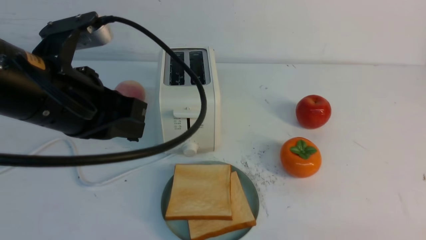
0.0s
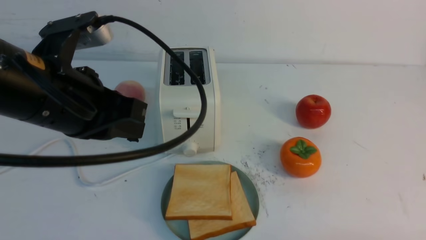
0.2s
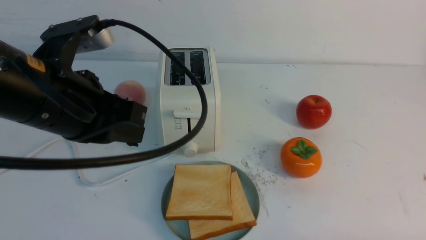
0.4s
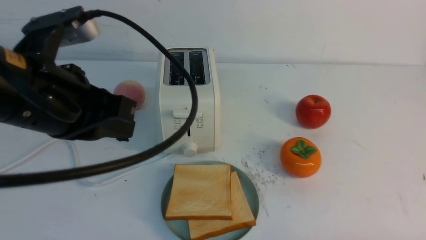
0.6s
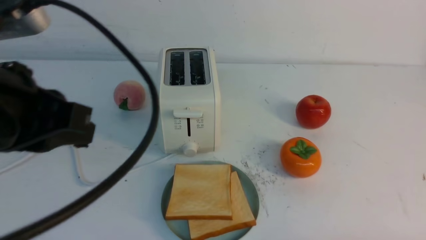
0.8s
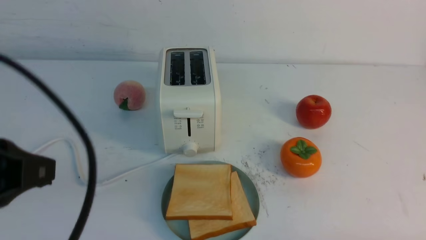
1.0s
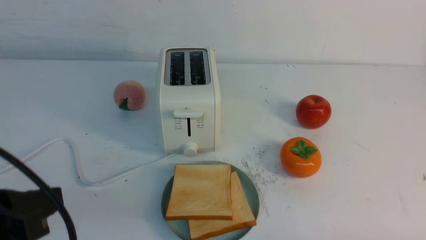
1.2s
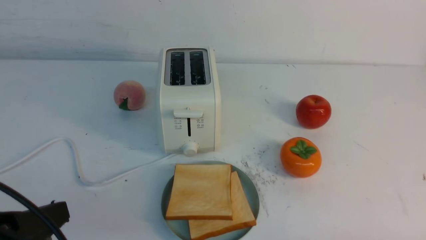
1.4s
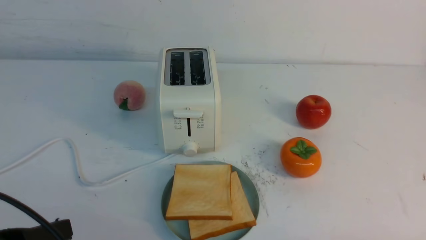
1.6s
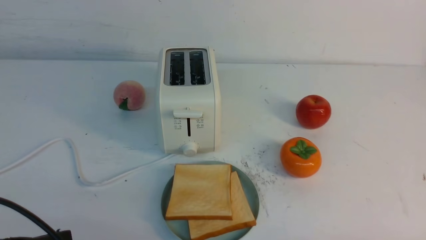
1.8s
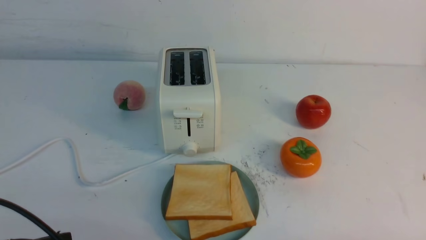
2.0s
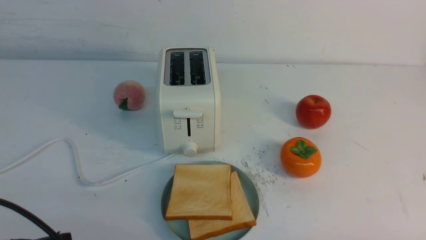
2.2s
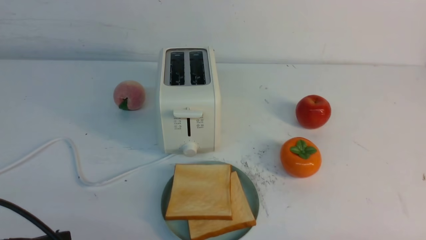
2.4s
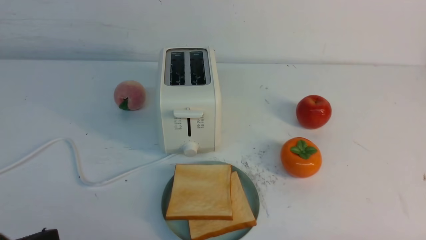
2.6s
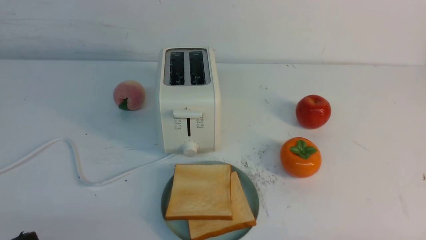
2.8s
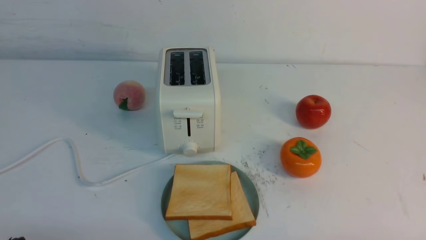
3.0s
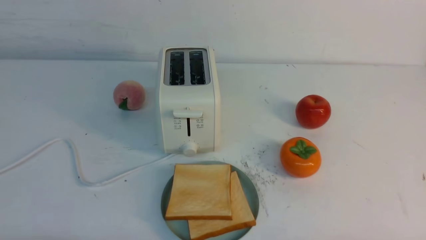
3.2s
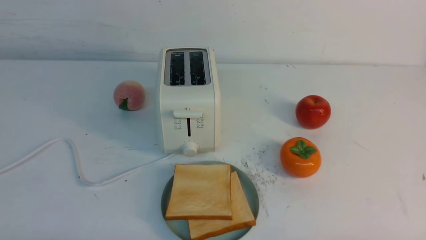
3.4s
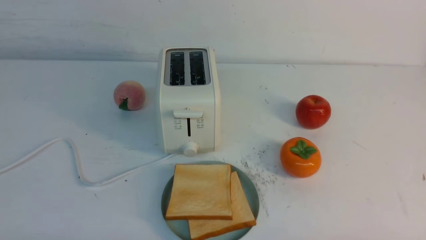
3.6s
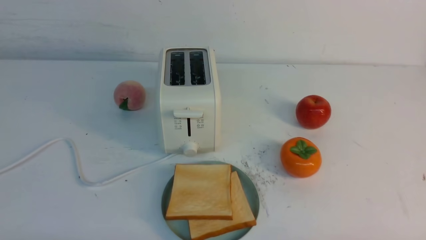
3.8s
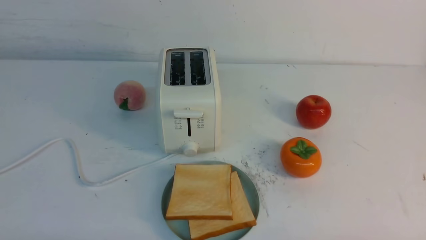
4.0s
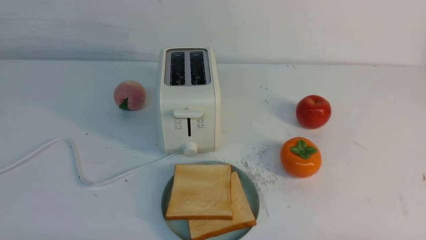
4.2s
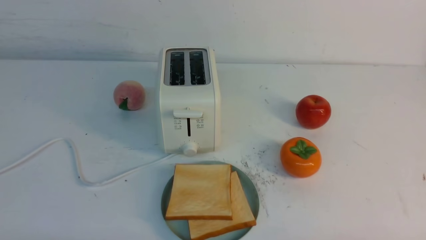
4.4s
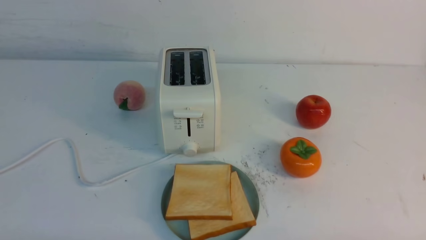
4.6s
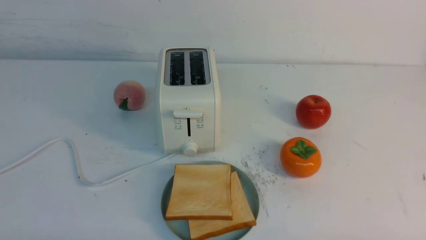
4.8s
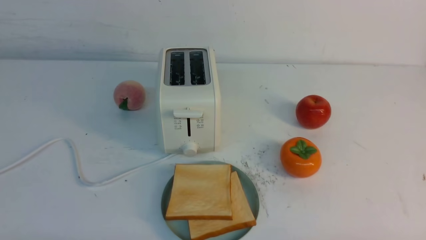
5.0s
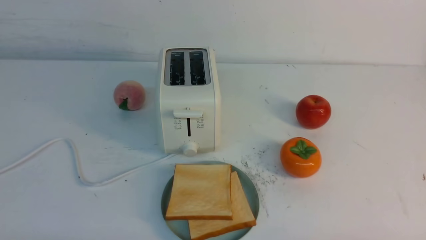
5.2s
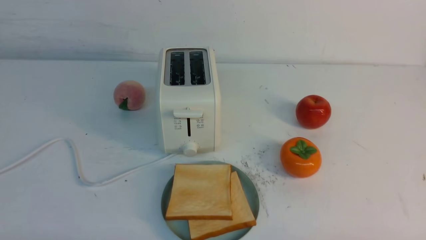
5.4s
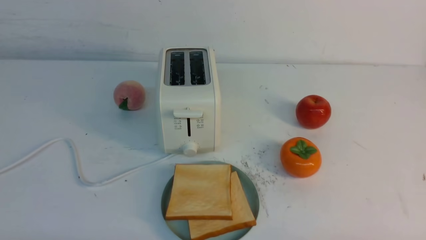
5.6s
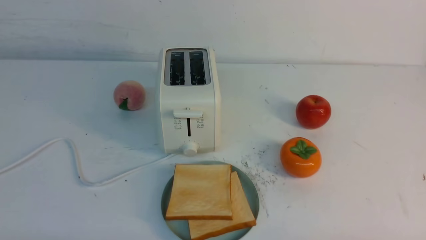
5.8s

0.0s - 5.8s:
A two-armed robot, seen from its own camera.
Task of the whole recording: take toasted bread from bread machine on white table place on plate.
0.0s - 1.4s: The left gripper travels backward, downward and to the left by approximately 15 cm.
1.4s - 2.8s: The left gripper ends up about 5 cm from where it was.
4.4s - 5.8s: Both grippers stay put.
